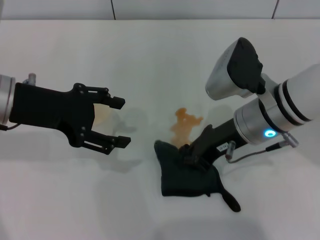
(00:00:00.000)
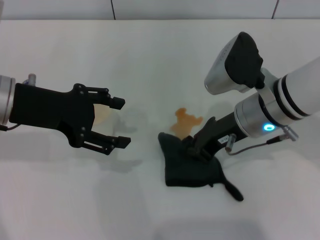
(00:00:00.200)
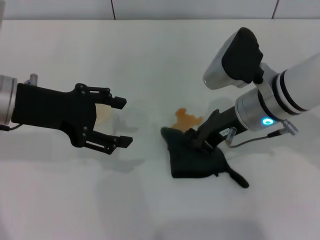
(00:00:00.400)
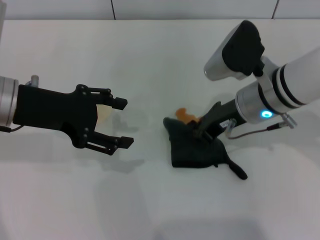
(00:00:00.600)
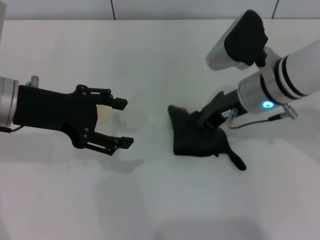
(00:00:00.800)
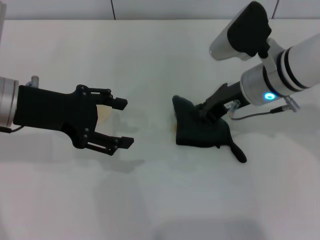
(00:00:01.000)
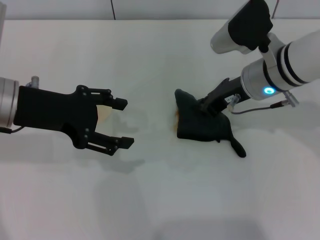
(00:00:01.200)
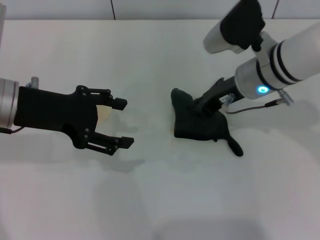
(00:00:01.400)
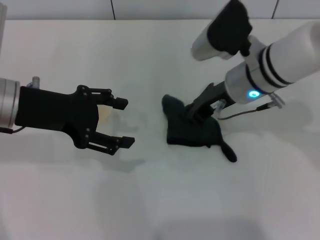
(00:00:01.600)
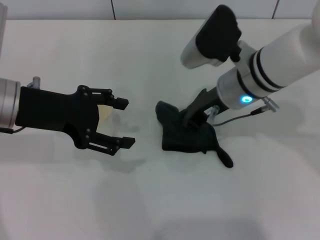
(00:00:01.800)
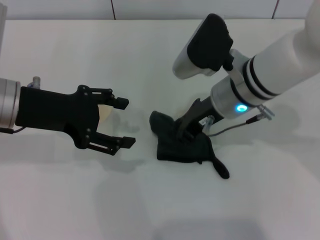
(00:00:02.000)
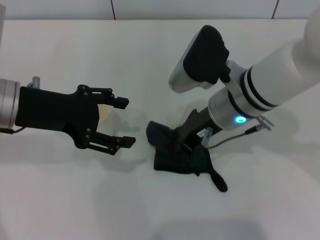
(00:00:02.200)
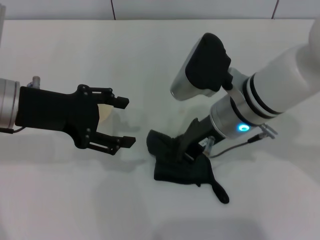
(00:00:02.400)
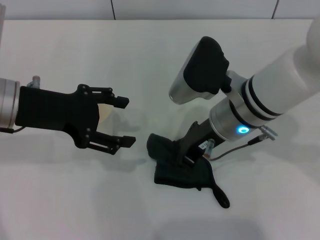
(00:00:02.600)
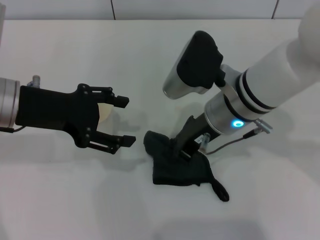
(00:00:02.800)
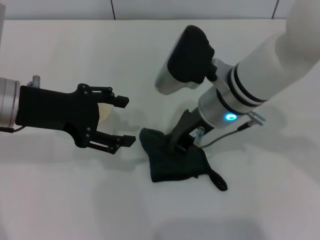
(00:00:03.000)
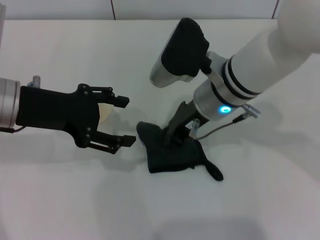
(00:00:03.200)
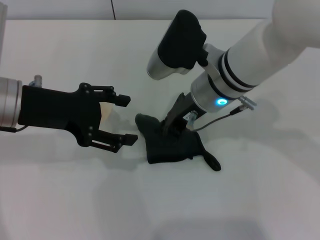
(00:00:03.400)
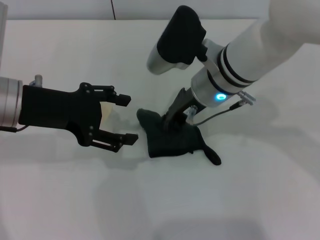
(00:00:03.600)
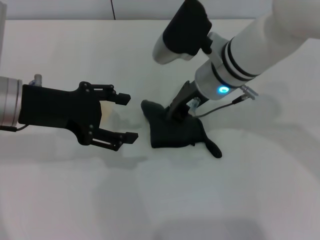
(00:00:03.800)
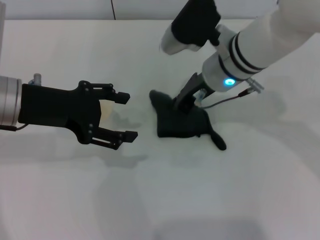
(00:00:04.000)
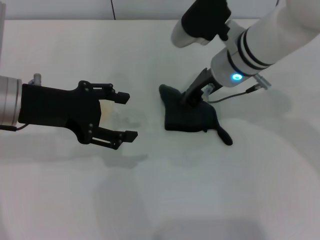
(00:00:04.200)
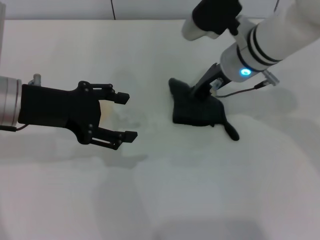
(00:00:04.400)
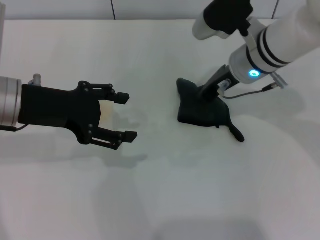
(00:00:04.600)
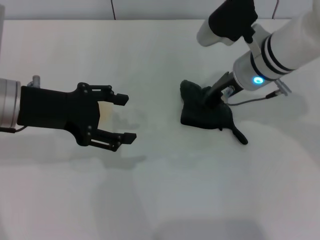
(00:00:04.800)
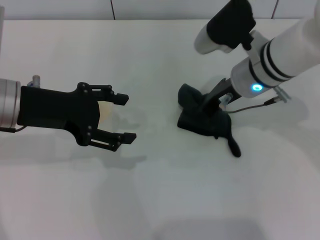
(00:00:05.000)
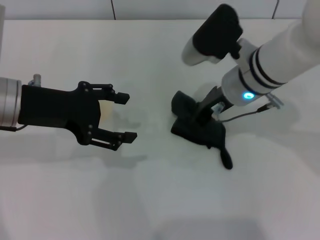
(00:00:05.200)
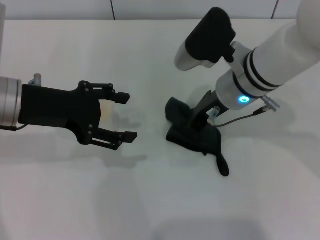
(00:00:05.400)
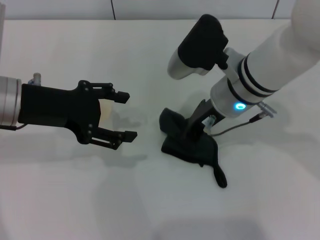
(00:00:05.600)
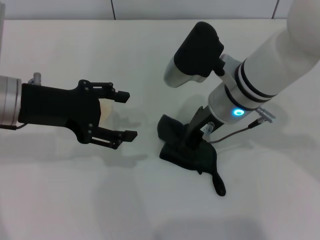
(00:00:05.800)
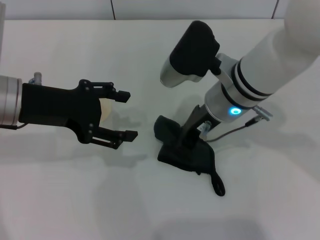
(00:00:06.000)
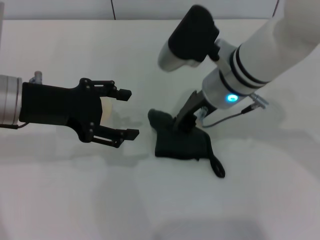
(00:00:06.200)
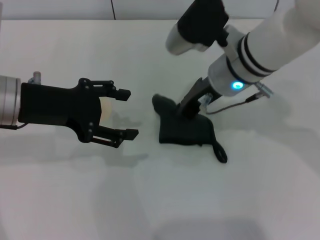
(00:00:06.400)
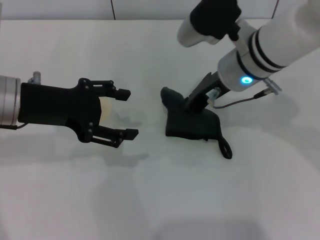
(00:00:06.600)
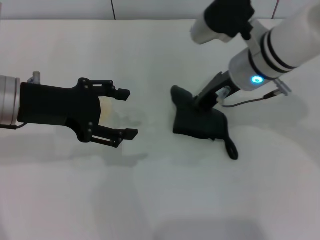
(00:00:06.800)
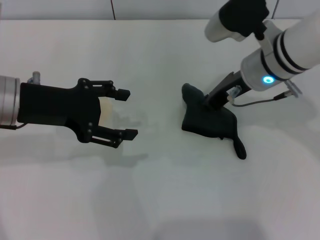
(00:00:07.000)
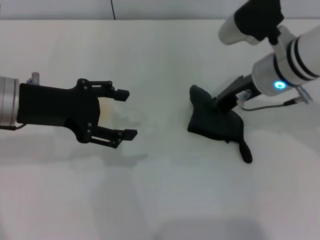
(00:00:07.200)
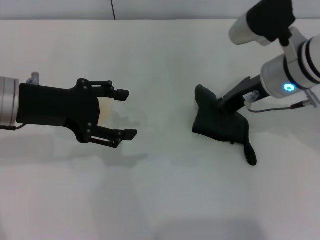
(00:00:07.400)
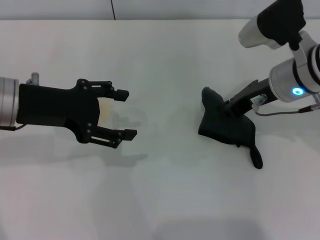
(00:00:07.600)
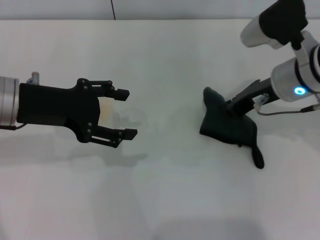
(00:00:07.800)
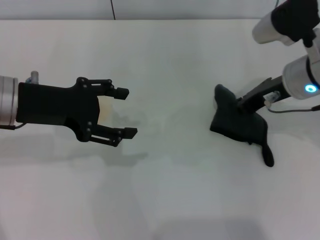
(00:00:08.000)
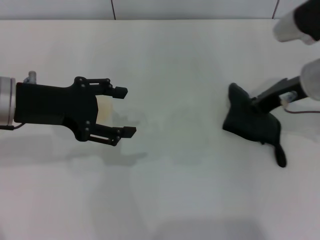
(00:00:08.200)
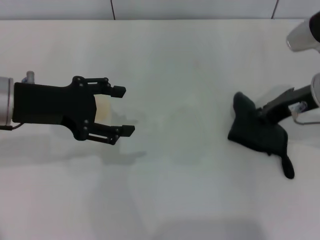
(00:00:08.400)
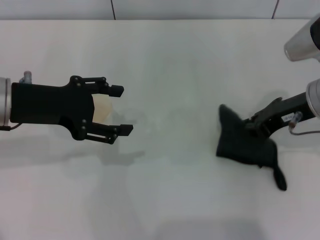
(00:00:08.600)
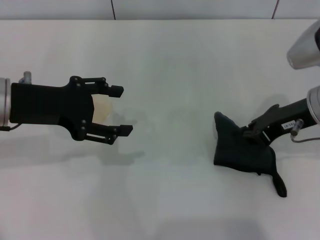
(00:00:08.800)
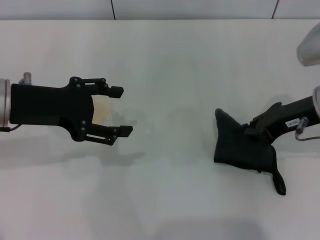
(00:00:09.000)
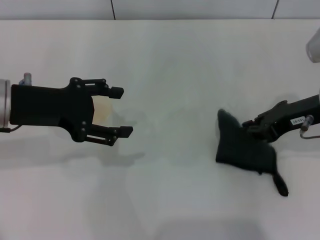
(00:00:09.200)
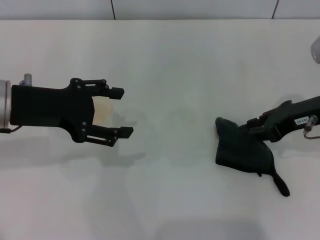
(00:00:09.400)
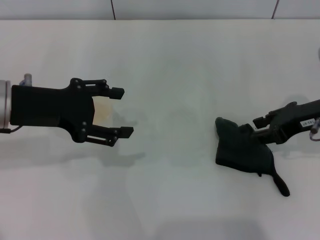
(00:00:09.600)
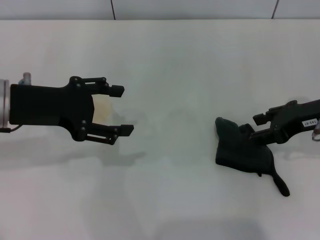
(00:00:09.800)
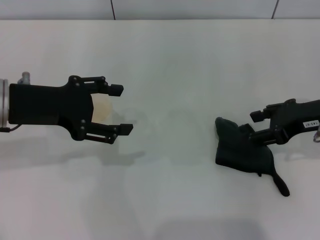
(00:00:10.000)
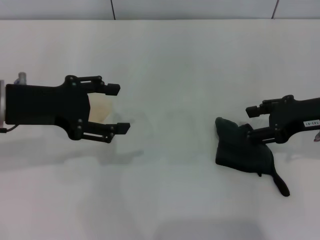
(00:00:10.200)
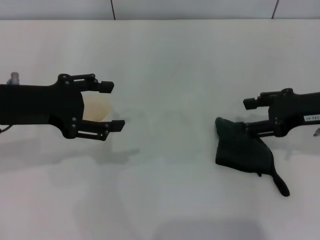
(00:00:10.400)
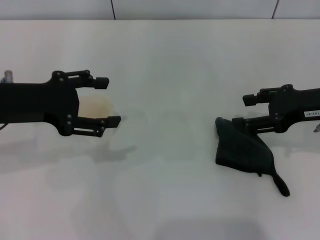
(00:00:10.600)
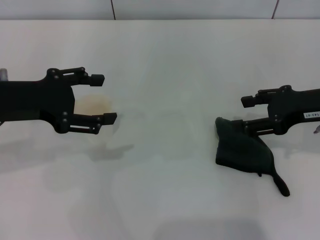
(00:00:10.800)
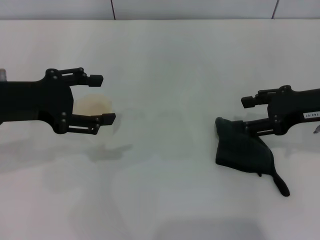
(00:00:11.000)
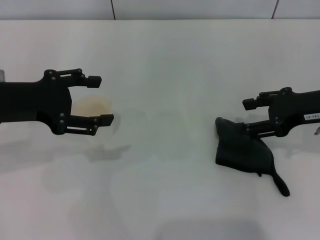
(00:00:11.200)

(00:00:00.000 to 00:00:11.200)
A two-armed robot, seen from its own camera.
Step, 00:00:00.000 - 00:00:09.000: Wipe the stains off the table with the right gripper.
Step, 00:00:09.200 - 00:00:10.200: Place the rag on the table with the right gripper.
00:00:00.000 - 00:00:01.600: The right gripper is displaced forward by about 5 cm.
00:00:01.600 - 00:00:03.200: The right gripper travels to the left by roughly 5 cm.
00:00:03.200 - 00:00:04.800: The right gripper heads to the right and forward, covering roughly 10 cm.
00:00:04.800 - 00:00:06.400: The right gripper changes place by some 5 cm.
00:00:06.400 - 00:00:08.000: The right gripper heads to the right, covering roughly 10 cm.
00:00:08.000 - 00:00:09.600: The right gripper travels to the right by some 5 cm, and opens up.
00:00:09.600 - 00:00:11.200: The right gripper opens up.

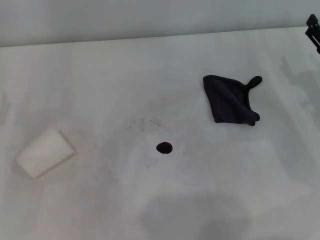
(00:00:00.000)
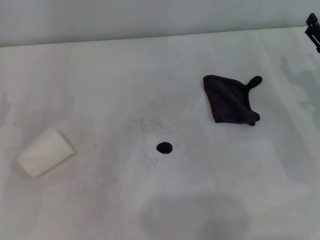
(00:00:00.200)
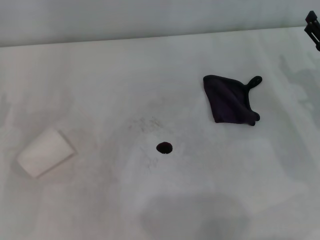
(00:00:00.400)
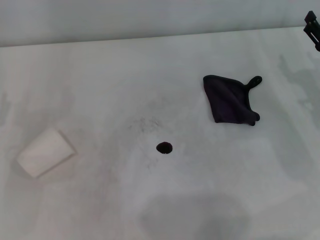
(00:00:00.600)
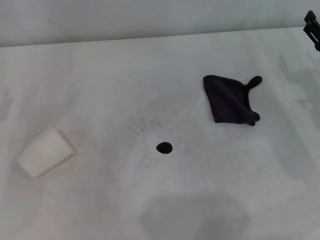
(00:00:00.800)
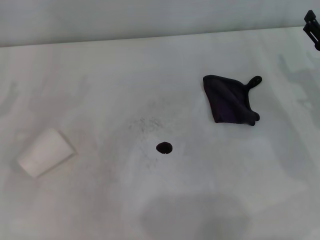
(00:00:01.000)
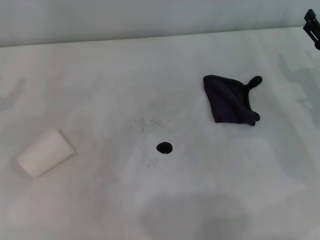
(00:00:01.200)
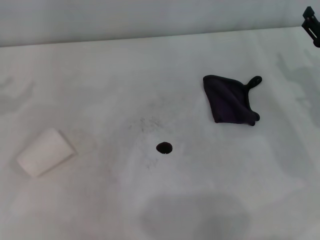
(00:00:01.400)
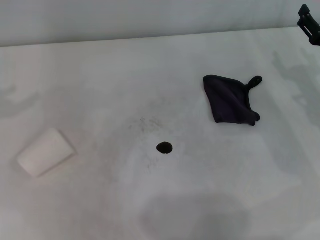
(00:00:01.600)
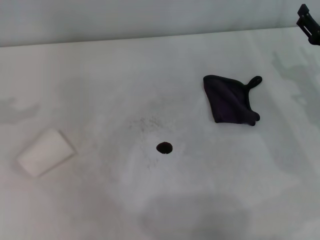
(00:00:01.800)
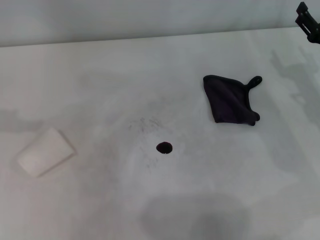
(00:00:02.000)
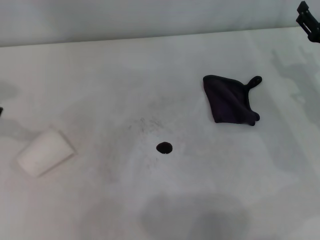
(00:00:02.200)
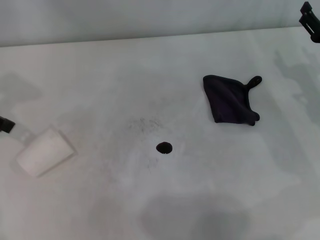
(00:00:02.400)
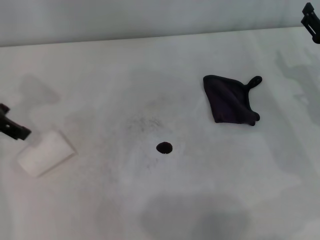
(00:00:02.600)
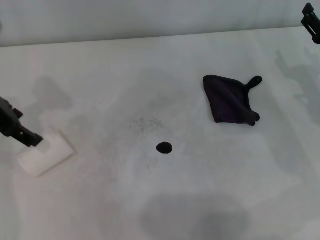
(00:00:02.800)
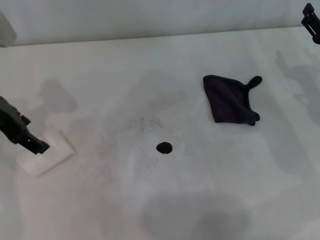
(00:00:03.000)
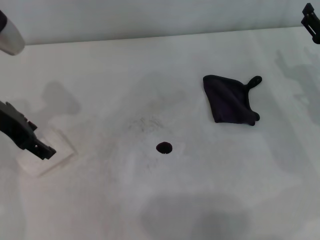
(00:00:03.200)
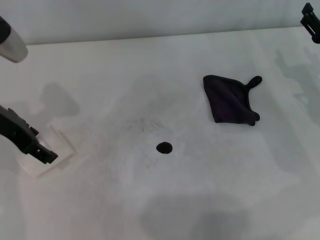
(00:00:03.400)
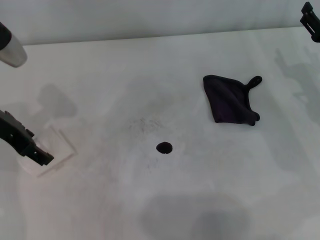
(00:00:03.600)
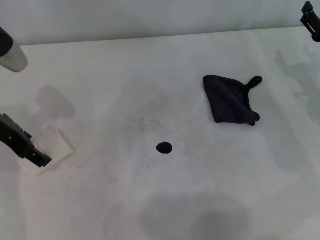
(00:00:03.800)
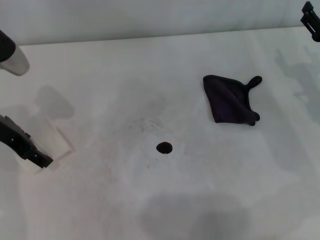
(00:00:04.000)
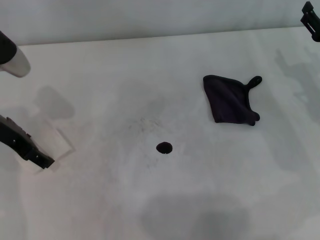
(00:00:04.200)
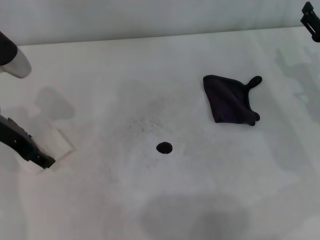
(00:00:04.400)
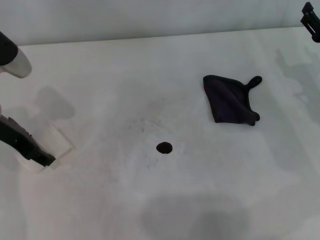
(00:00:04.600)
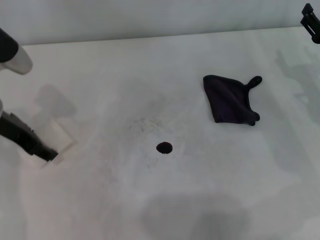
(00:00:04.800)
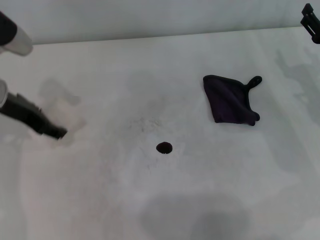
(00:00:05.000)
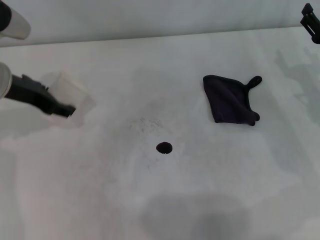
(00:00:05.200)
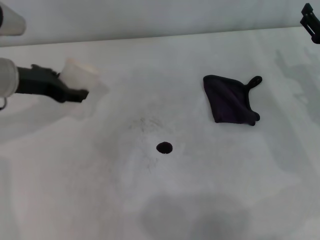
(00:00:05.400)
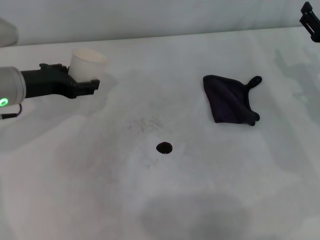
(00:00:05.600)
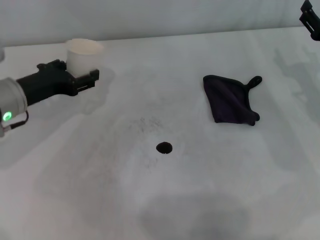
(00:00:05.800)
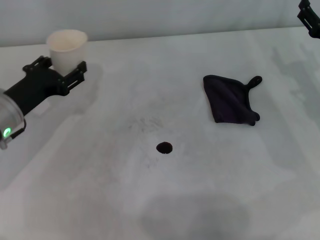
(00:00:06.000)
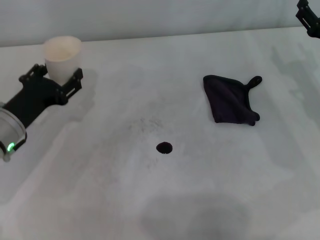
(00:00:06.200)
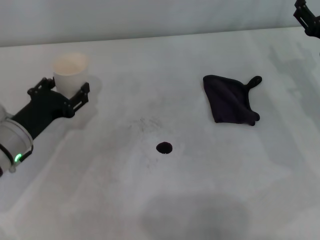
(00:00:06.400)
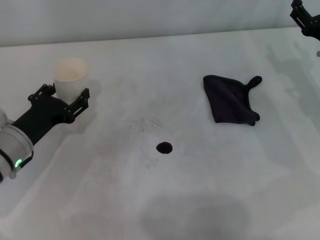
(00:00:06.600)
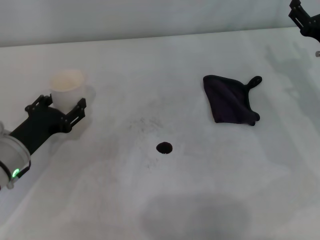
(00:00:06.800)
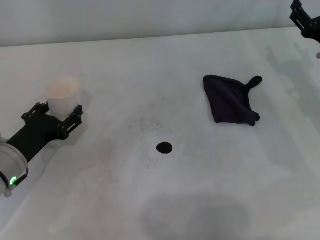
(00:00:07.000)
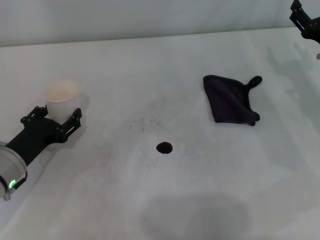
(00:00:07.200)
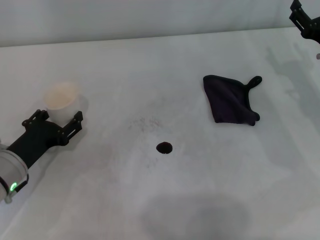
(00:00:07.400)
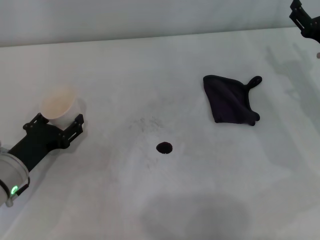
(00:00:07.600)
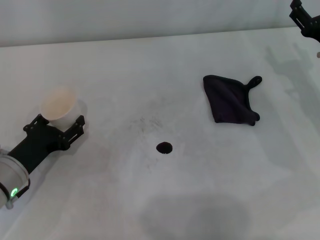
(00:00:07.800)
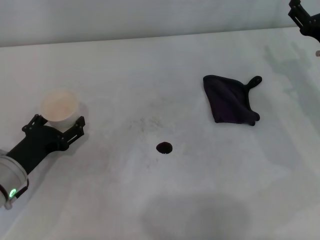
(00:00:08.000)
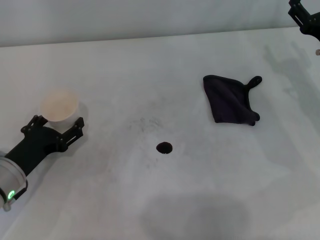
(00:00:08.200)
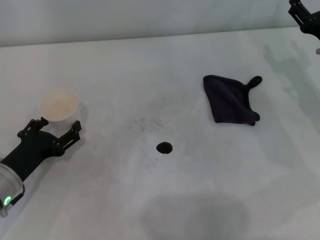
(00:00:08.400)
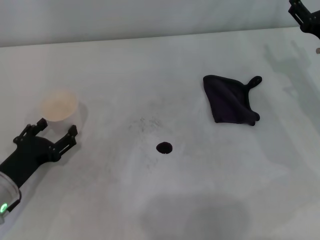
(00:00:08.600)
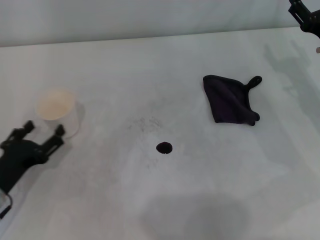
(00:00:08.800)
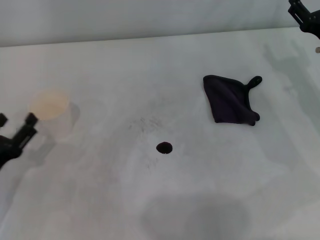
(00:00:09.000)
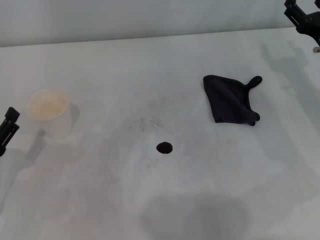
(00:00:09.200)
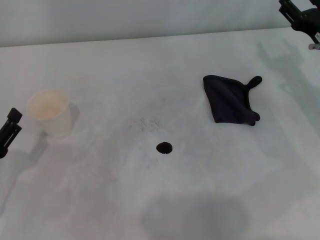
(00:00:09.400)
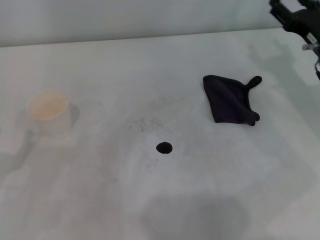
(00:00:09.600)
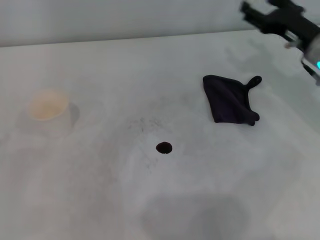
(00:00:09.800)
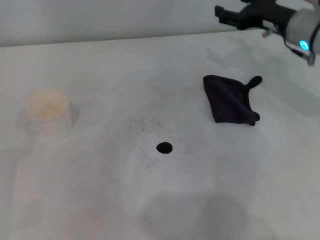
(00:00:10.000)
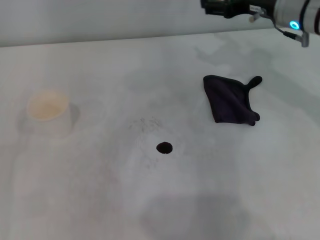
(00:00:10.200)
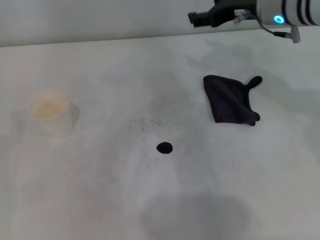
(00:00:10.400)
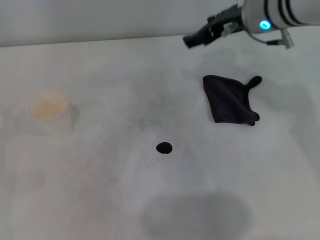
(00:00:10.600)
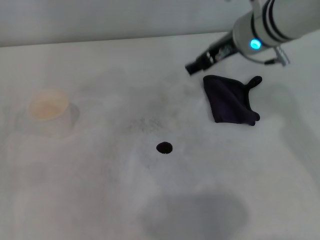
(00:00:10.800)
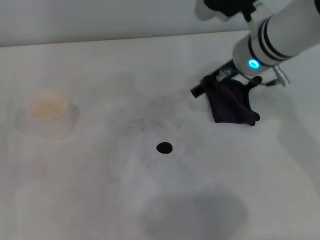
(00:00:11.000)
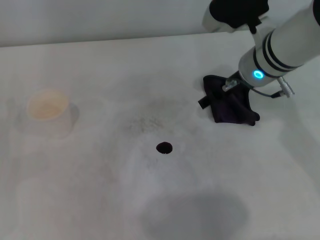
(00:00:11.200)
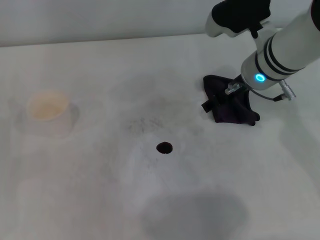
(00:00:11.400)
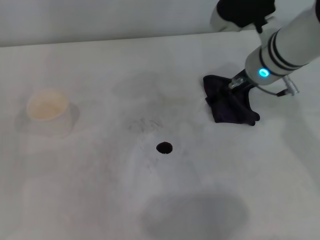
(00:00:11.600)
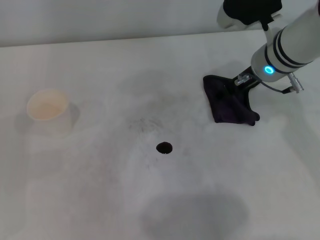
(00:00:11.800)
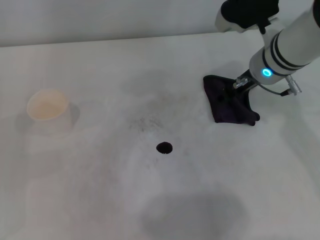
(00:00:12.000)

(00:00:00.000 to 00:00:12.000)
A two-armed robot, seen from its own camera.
Step, 00:00:00.000 - 00:00:04.200: Grasp the paper cup with the left gripper.
Step, 00:00:04.600 - 00:00:08.000: Stand the paper cup upright with the left gripper.
00:00:01.600 - 00:00:03.000: The left gripper is displaced to the right by some 15 cm.
00:00:03.000 - 00:00:04.400: The left gripper is displaced downward by roughly 5 cm.
00:00:04.400 - 00:00:06.000: The left gripper heads downward, covering approximately 10 cm, and closes up.
00:00:06.000 - 00:00:07.600: The left gripper goes roughly 10 cm backward and downward.
00:00:07.600 - 00:00:09.000: The left gripper heads backward, covering approximately 5 cm, and opens its fingers.
00:00:09.000 - 00:00:10.400: The left gripper goes about 5 cm to the left. The right gripper travels to the left, upward and forward by roughly 15 cm.
00:00:10.400 - 00:00:12.000: The right gripper is displaced downward by roughly 5 cm.
